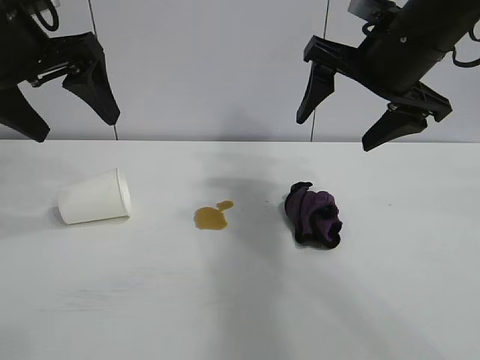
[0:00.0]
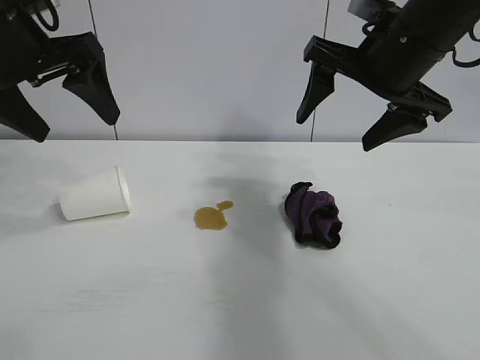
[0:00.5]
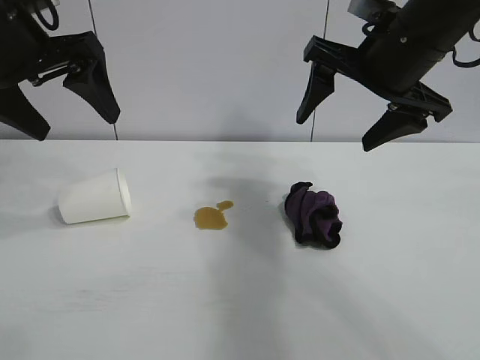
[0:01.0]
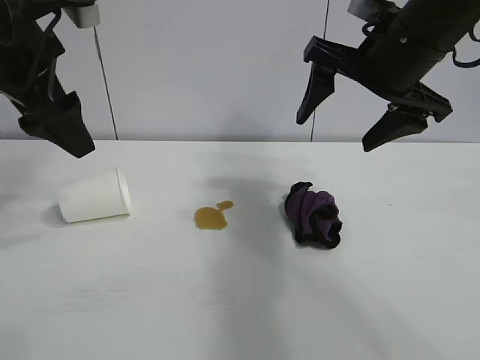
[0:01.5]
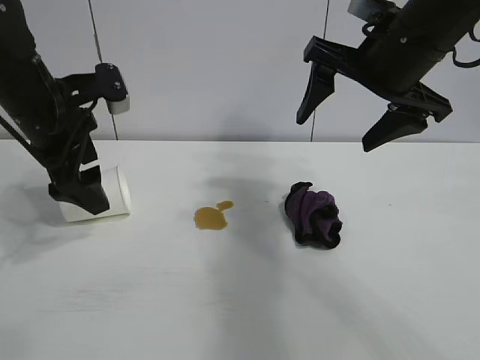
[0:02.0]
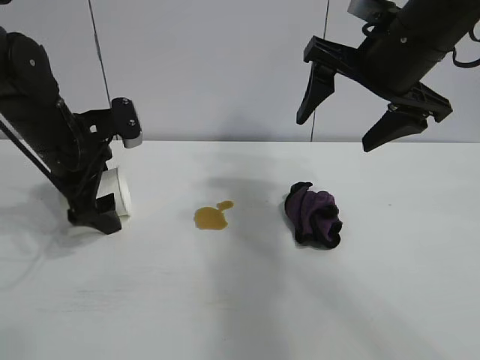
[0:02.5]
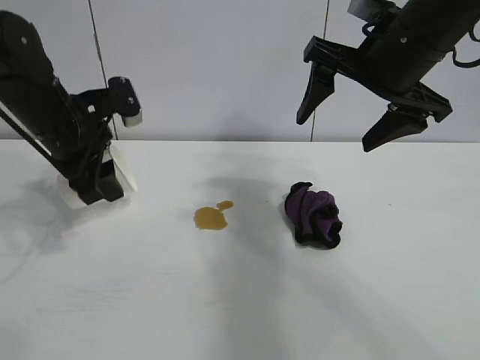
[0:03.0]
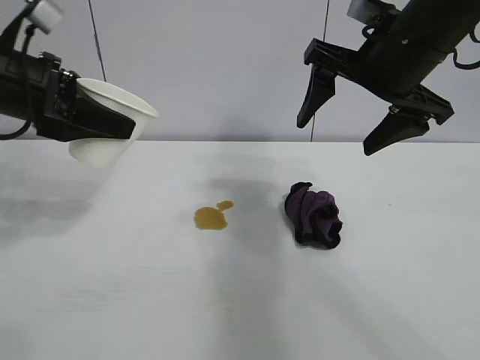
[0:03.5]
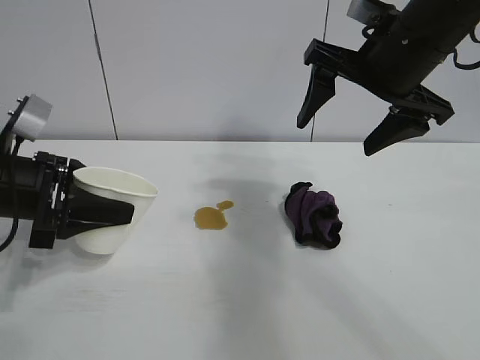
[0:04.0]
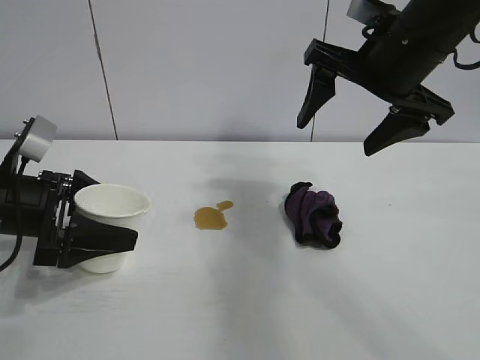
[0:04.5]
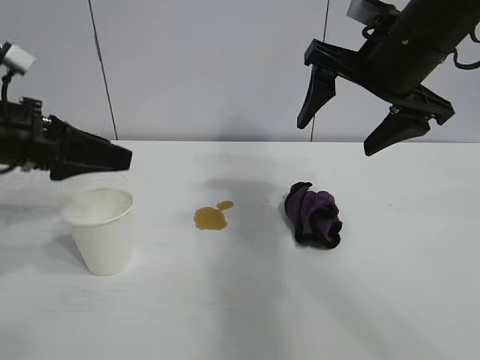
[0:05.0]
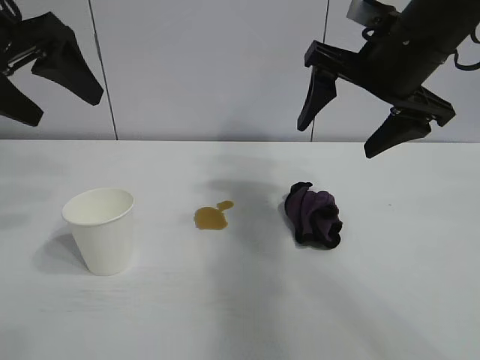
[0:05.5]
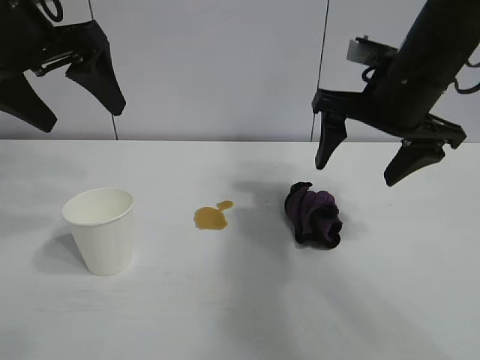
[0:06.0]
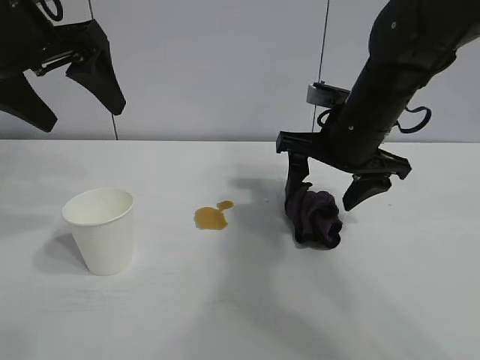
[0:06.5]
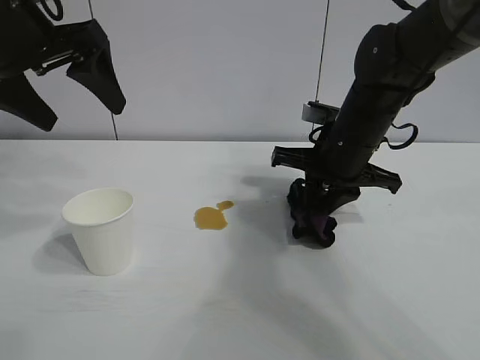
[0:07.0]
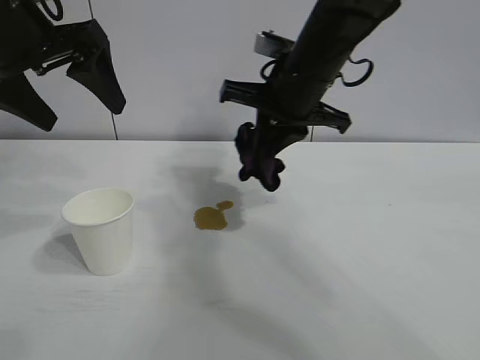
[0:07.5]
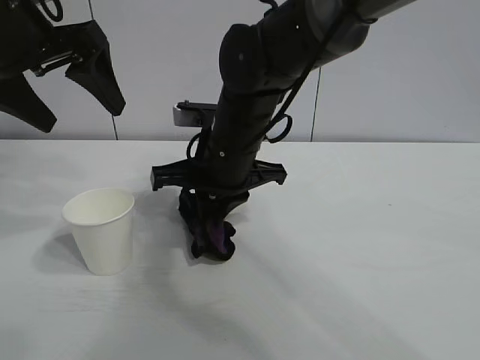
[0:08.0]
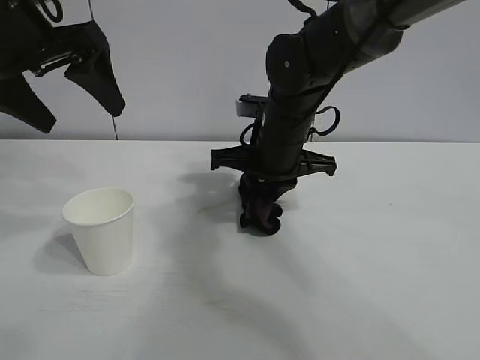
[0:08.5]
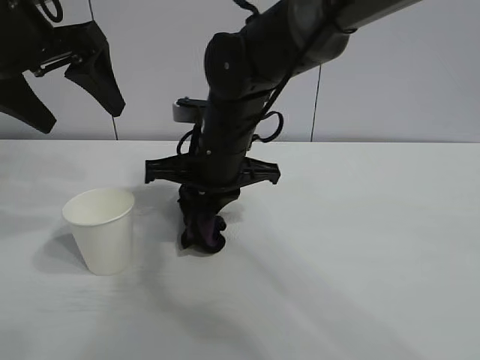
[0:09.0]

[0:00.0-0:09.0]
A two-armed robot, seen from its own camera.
Task of the whole recording: the left gripper pick up the fallen cup and place it upright, the right gripper grasp the black rag and wipe the stain on the table, the right gripper put the black rag back in its original position.
Step, 0:01.5 to 0:02.5: Grasp the paper cup with left gripper.
Step, 0:03.0 to 0:04.5: Stand the paper cup upright with left gripper.
Step, 0:05.0 to 0:07.0: Grasp the rag with right gripper.

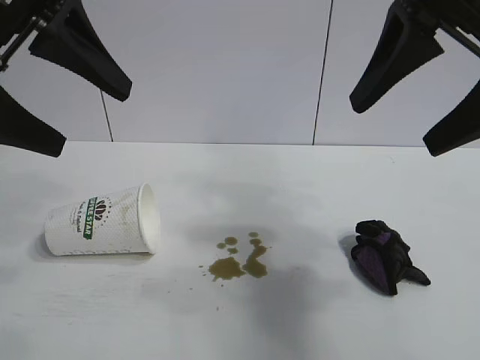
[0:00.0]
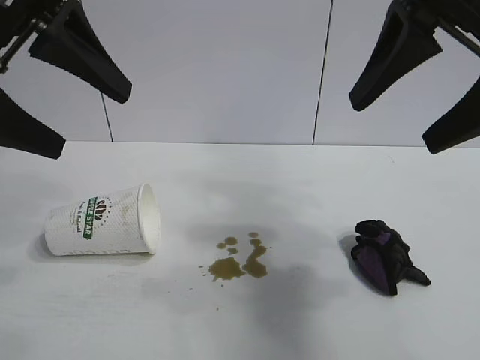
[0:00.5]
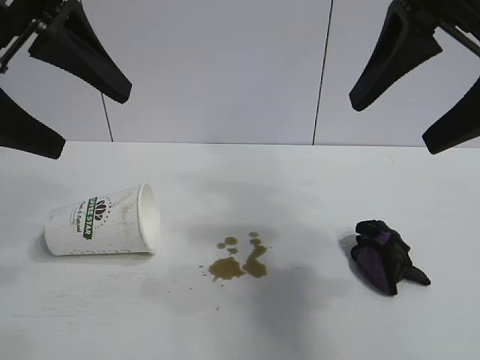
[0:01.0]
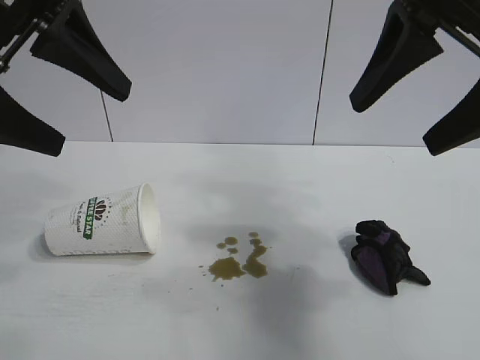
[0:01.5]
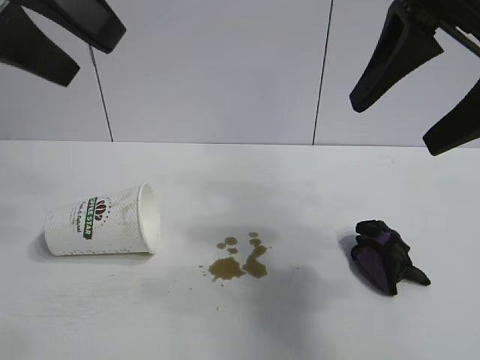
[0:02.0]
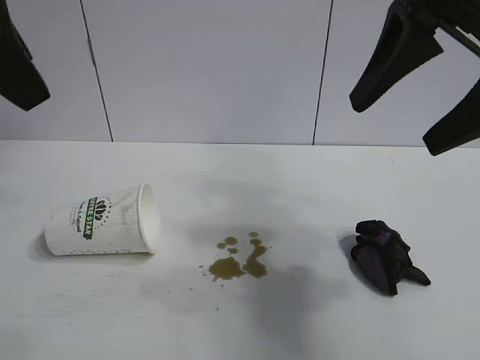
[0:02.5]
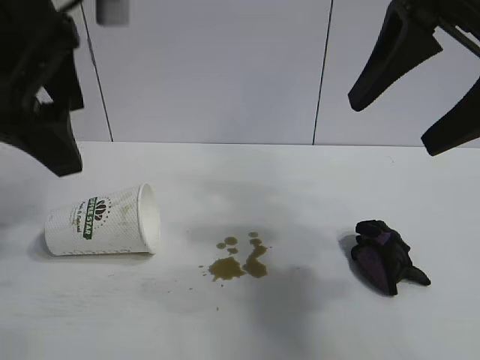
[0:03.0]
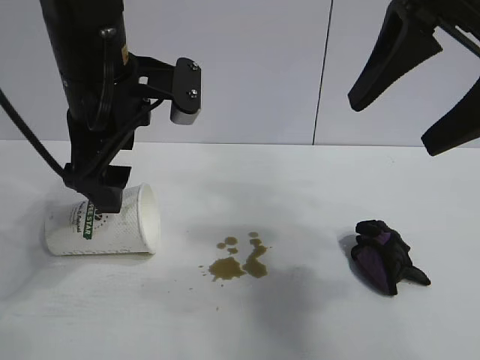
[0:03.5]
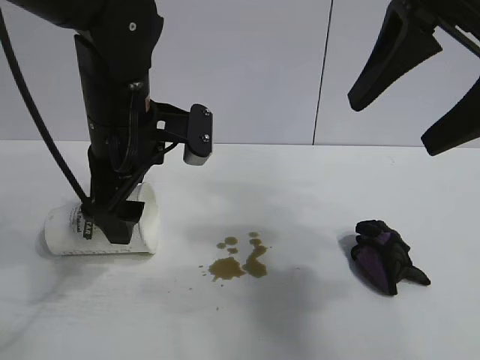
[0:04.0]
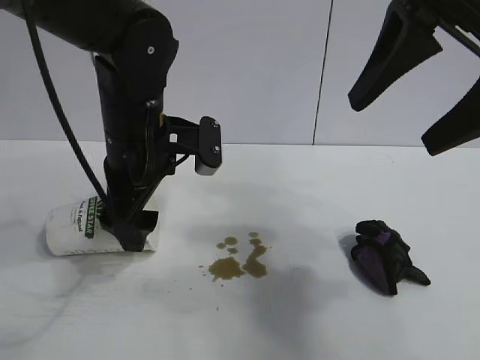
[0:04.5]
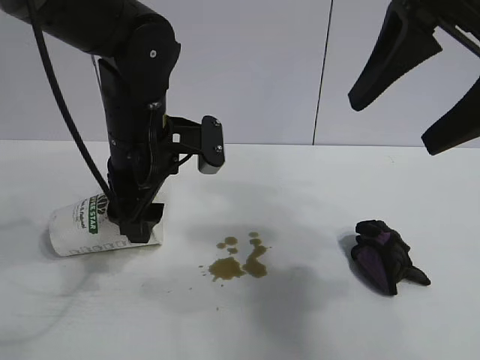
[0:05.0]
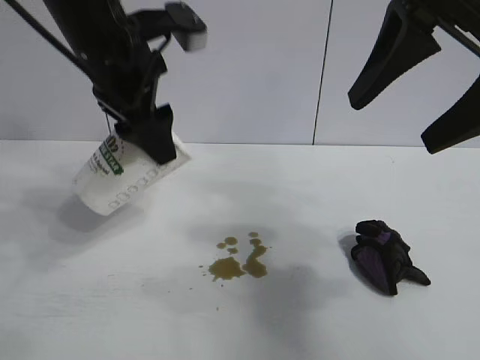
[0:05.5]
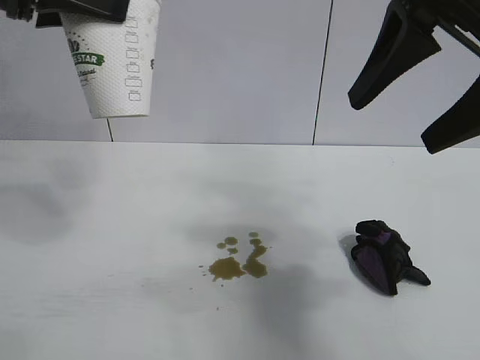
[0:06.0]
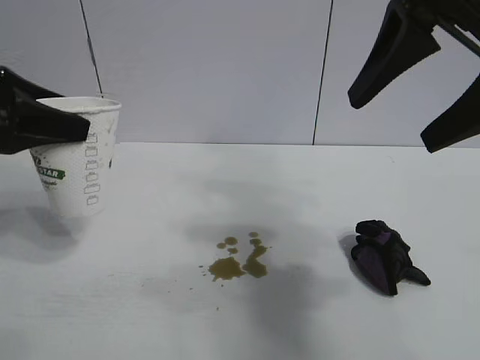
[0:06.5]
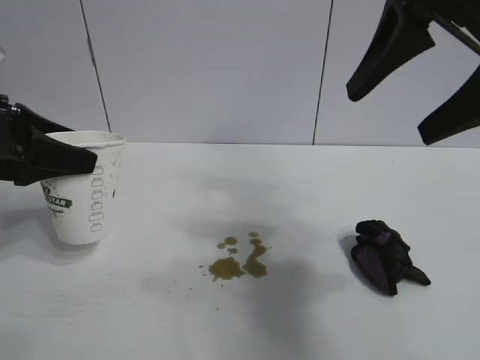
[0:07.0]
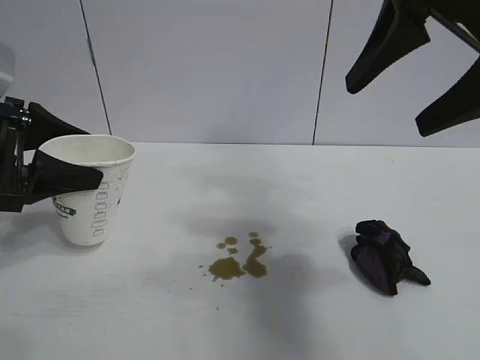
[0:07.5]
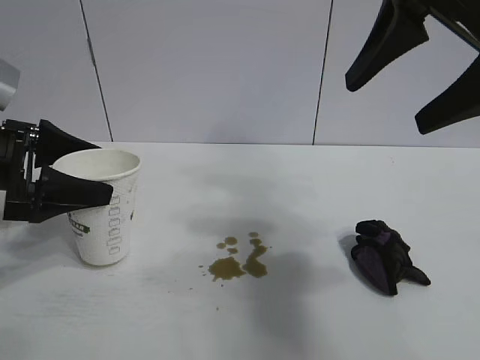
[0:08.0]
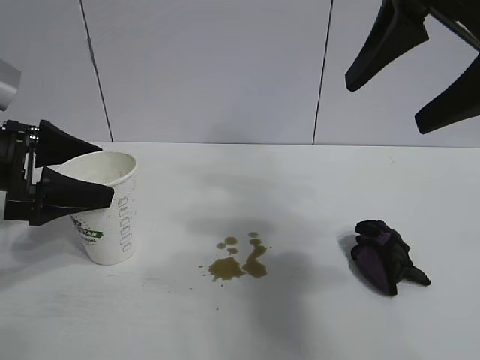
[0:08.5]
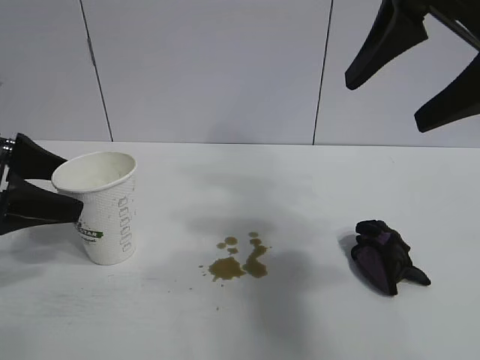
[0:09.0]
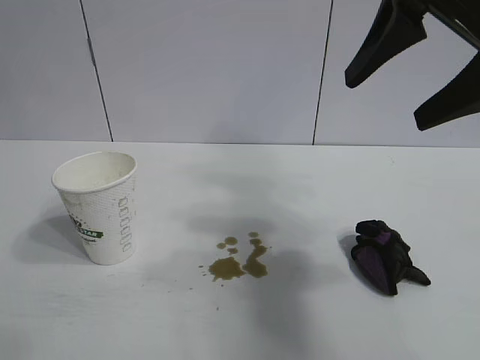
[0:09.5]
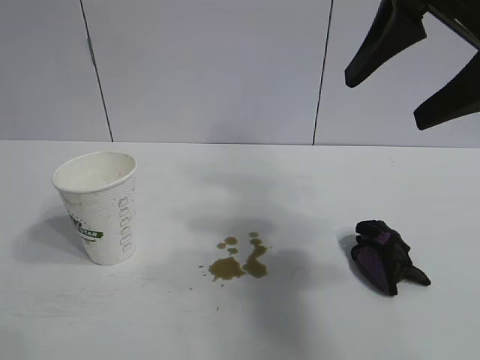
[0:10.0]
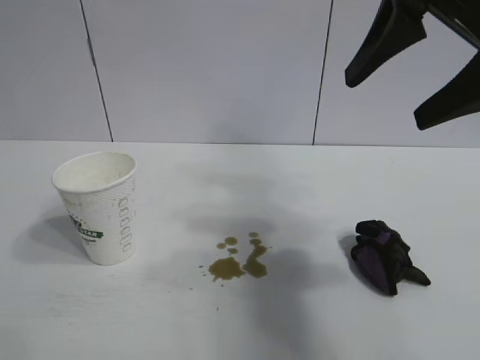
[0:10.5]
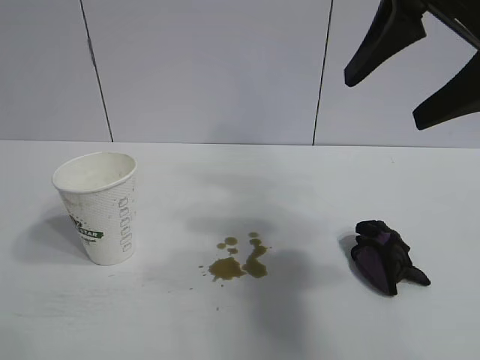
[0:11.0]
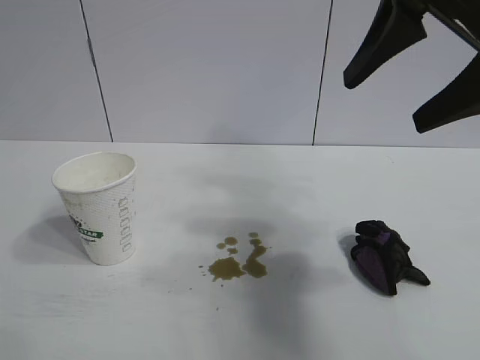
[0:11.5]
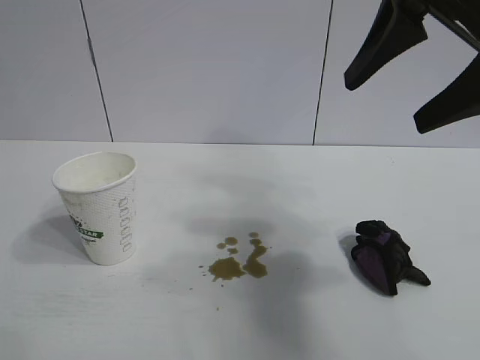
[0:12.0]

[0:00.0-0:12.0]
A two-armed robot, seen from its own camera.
Task of the whole recording: the left gripper pick up the fallen cup and place it upright, the right gripper grasp the black rag and wipe the stain on the table, the right gripper put the black rag back in its original position.
Step, 0:02.0 to 0:05.0: Grasp the paper cup with left gripper.
Step, 0:05.5 to 0:08.0: Stand the paper cup upright with left gripper.

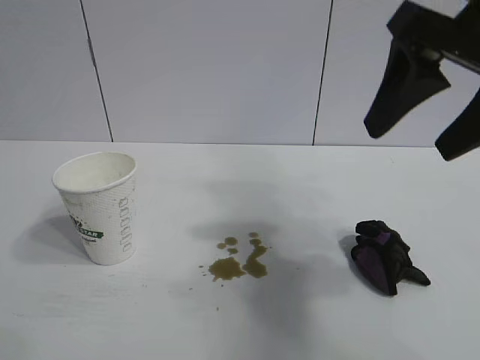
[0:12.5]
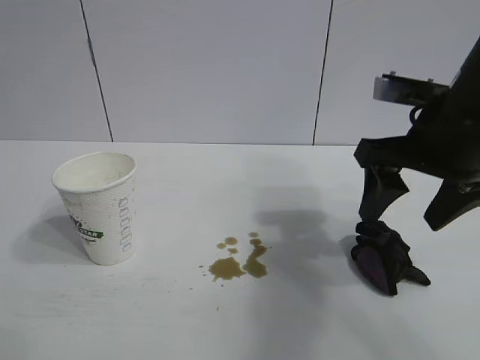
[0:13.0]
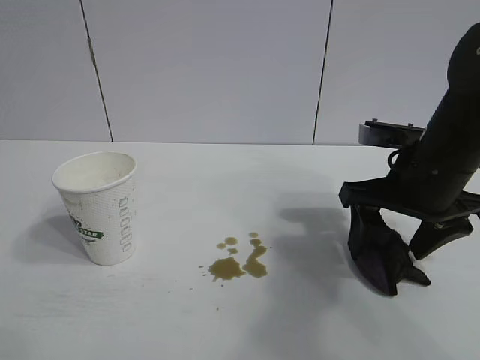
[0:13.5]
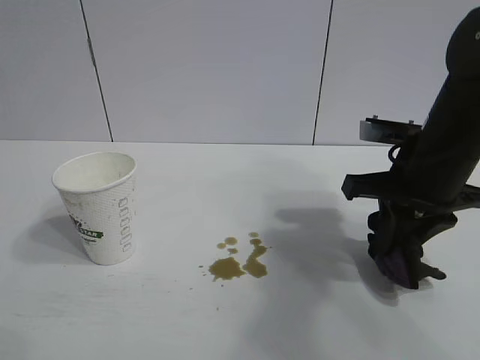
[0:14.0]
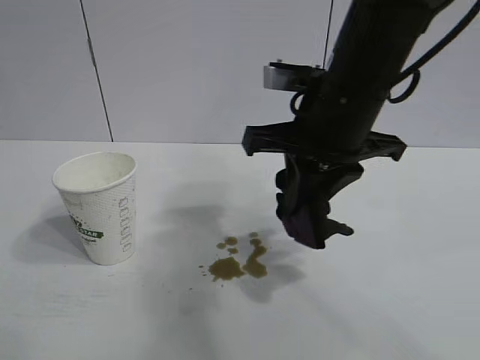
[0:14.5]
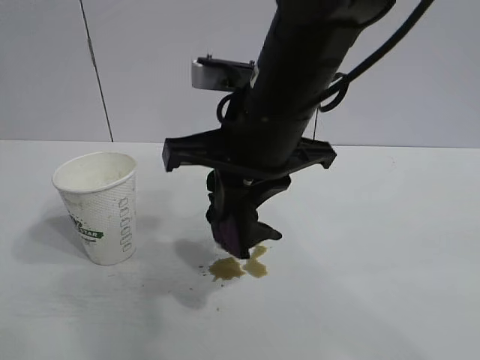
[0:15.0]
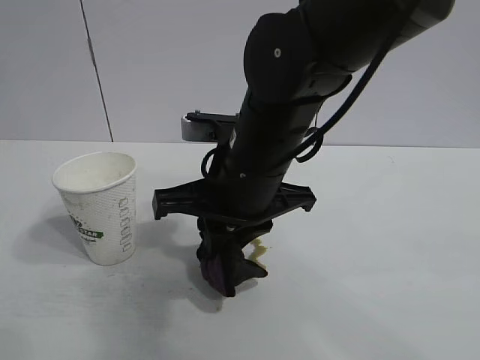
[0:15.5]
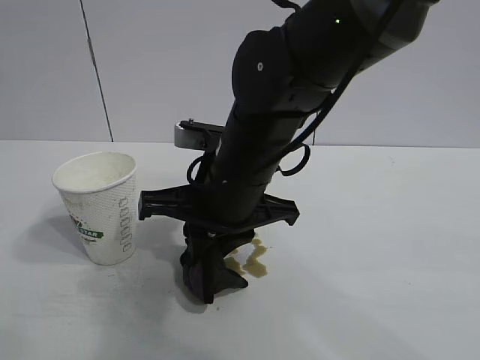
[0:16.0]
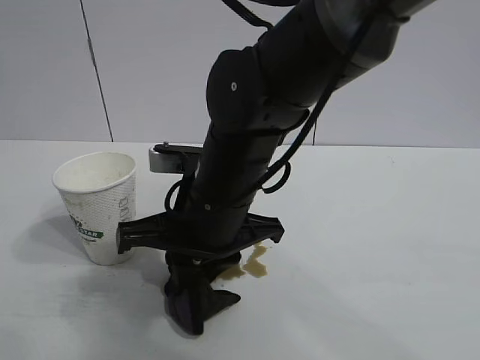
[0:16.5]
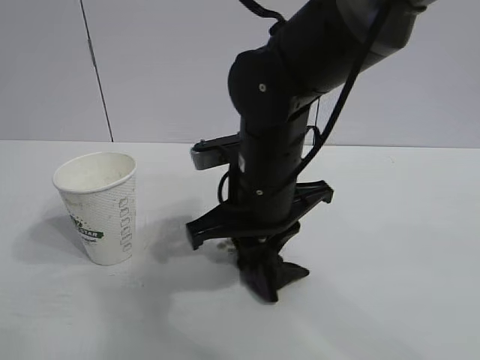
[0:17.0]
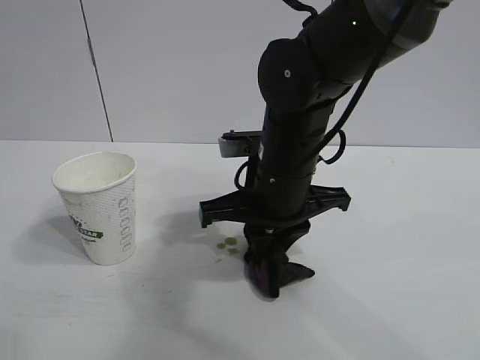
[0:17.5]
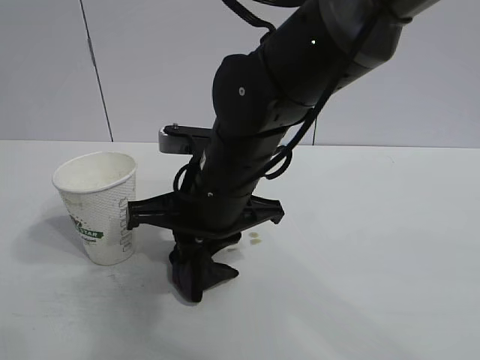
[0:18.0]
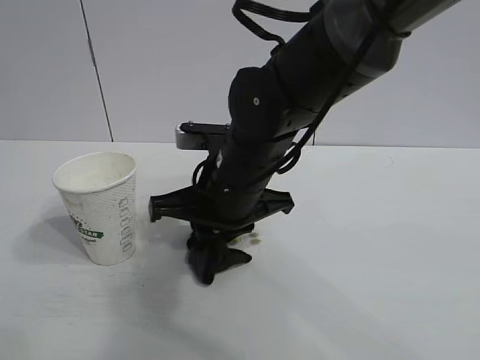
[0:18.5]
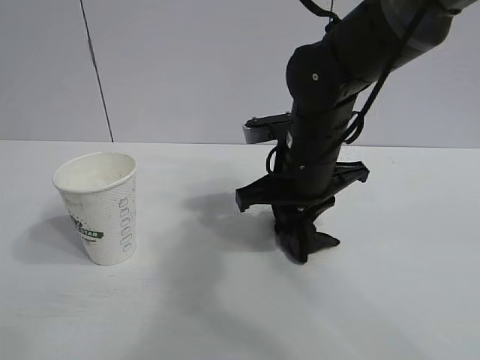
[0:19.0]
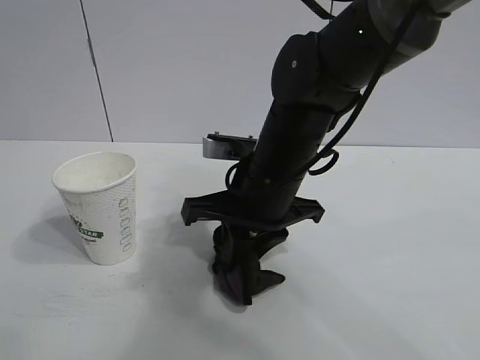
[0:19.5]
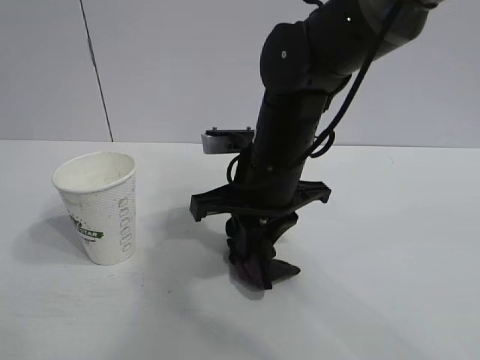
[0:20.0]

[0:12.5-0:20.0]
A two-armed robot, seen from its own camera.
Task of the whole recording: the left gripper pick up the fallen cup and place it upright, the right gripper grasp the black rag and wipe the stain on the table, the right gripper put the black rag back in its original position.
Step, 0:14.0 to 0:19.5: Wipe the stains off the table with the rag with right gripper.
